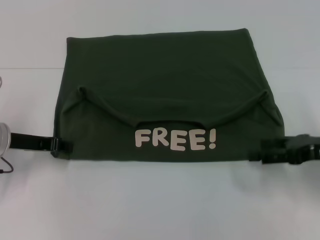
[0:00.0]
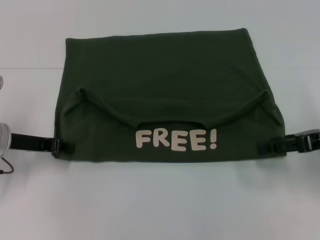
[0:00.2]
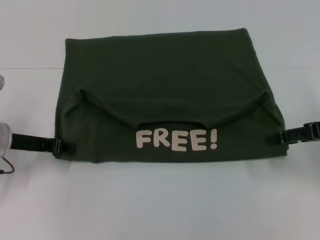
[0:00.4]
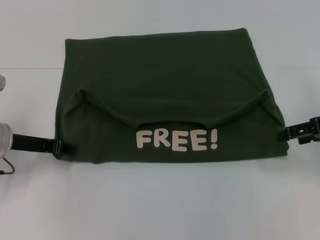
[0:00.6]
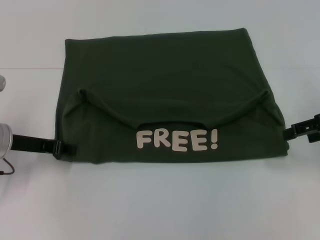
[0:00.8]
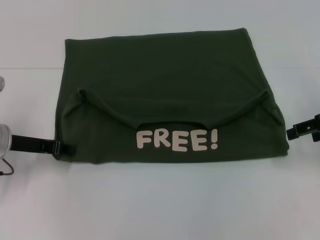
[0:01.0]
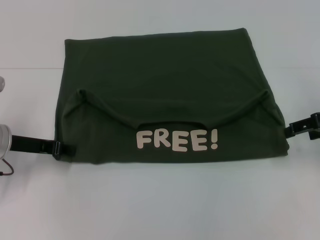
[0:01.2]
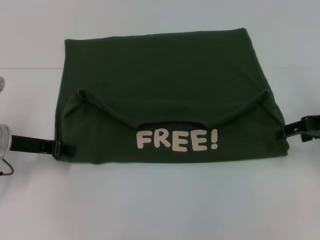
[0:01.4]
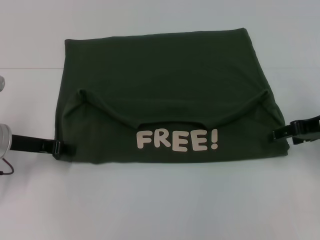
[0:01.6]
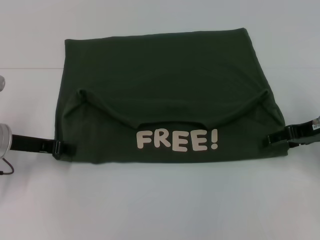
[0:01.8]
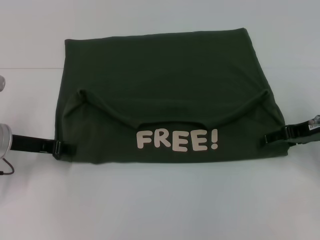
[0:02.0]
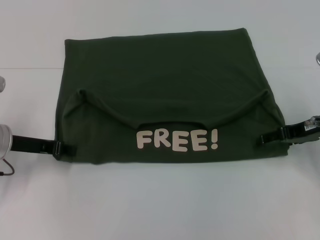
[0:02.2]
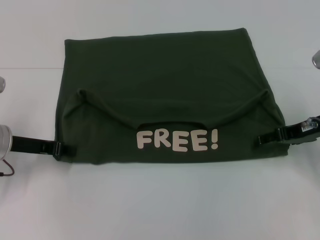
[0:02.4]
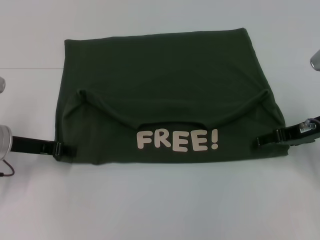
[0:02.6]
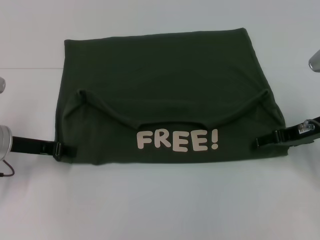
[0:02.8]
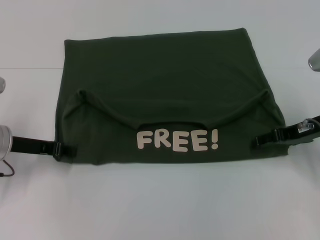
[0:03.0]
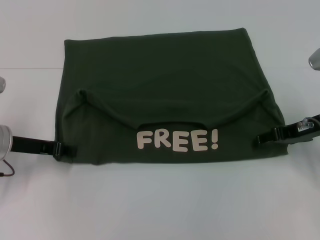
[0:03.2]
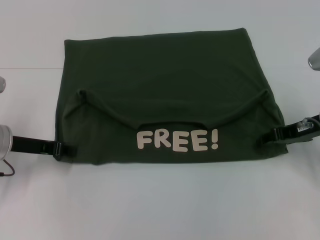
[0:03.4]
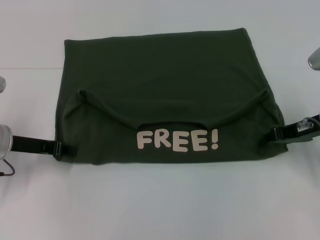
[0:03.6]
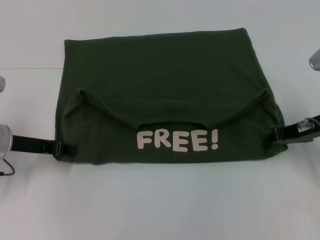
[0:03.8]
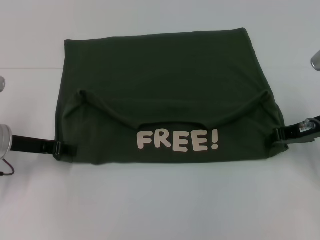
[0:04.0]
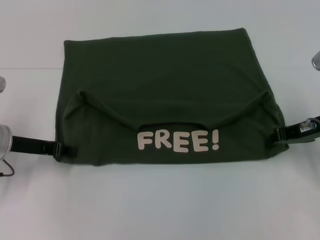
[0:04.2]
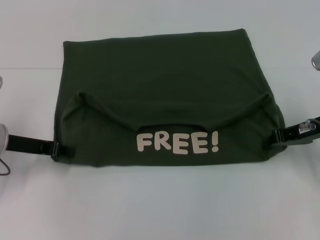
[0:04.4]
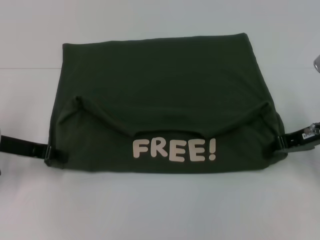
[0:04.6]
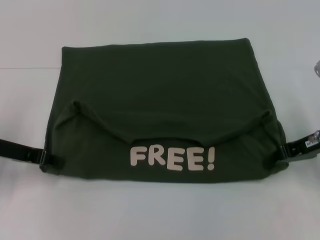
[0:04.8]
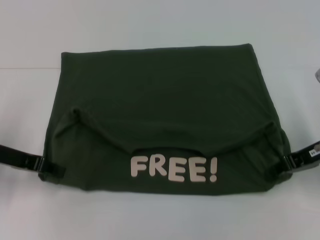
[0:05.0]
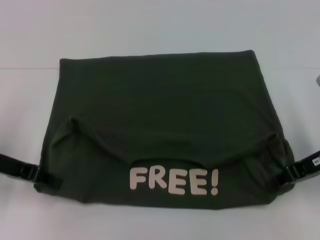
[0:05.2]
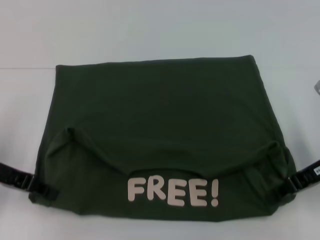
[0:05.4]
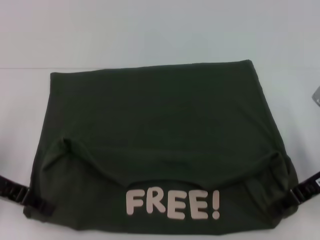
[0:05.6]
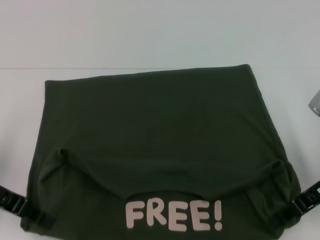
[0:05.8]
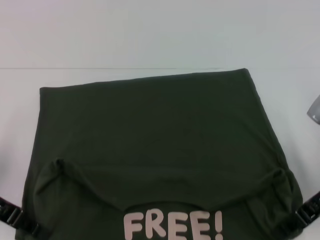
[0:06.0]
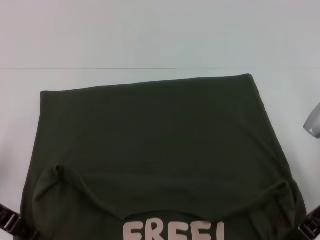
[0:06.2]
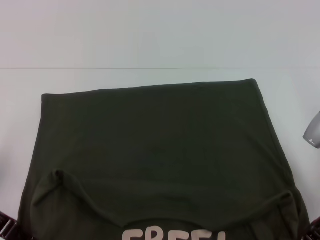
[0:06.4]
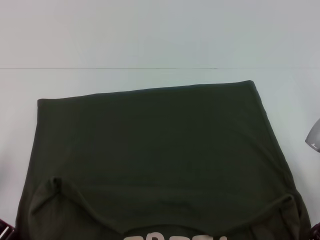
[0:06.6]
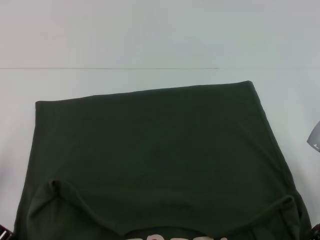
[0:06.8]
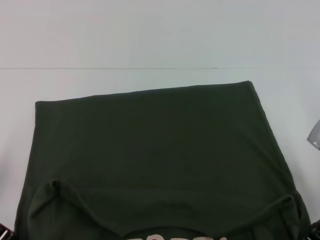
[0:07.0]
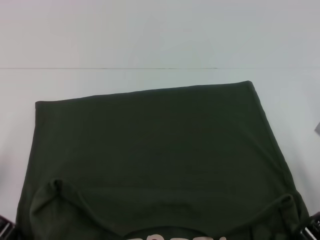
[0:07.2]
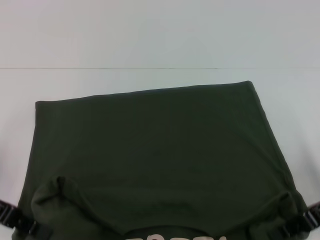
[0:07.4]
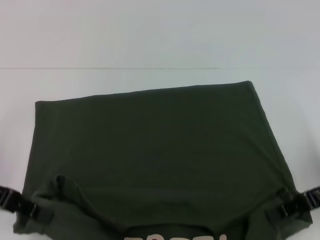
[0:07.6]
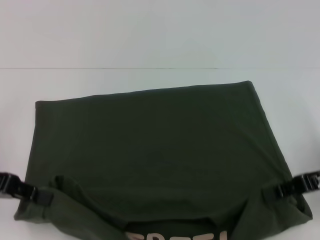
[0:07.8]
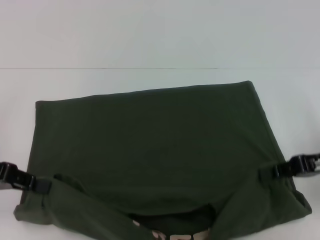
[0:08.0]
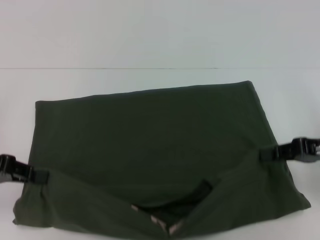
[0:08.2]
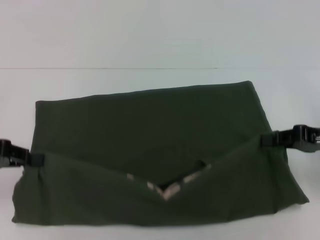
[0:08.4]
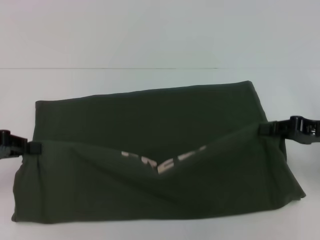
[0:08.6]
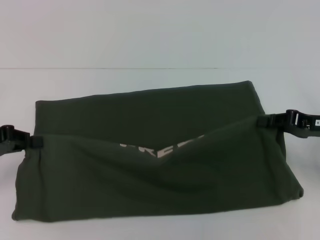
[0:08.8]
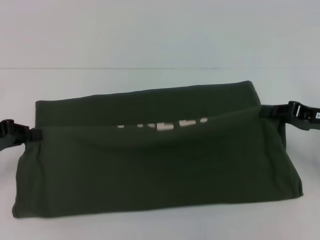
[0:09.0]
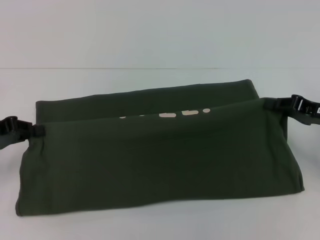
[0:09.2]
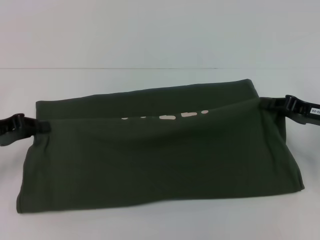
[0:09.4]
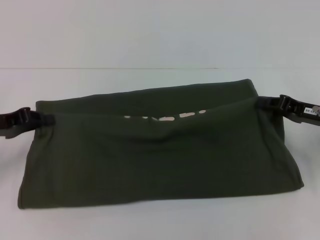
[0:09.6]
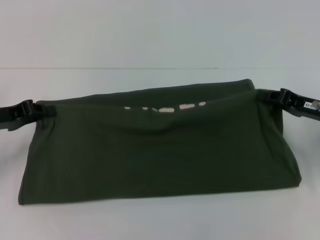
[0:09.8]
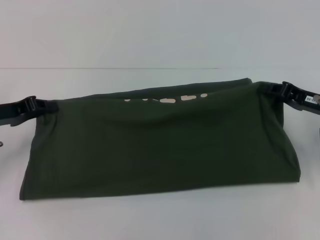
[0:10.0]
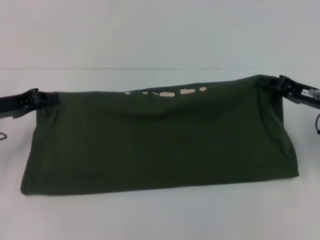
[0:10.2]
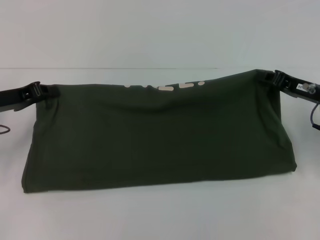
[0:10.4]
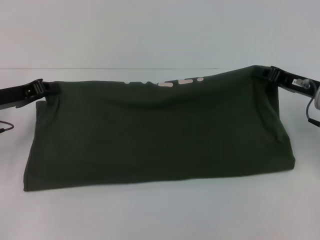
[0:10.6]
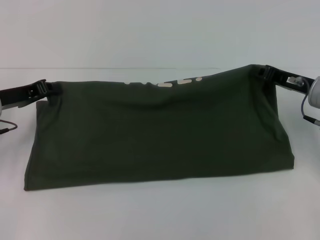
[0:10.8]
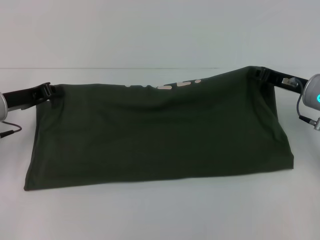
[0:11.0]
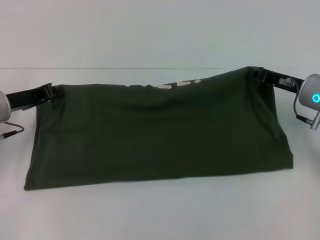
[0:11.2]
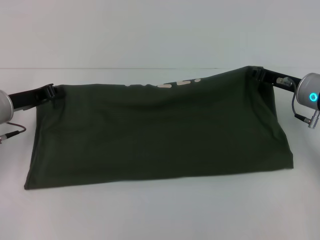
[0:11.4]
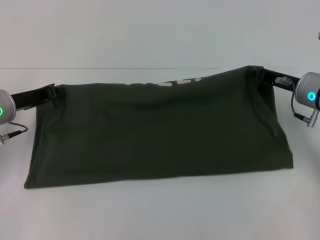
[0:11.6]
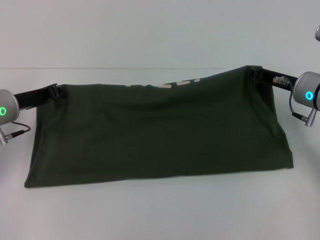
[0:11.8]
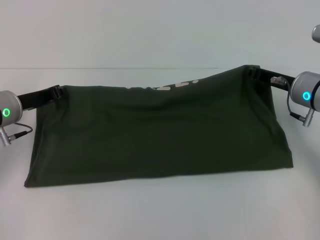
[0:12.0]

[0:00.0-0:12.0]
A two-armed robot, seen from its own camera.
Step, 0:00.0 to 0:06.0: Pull the clothes with your left hand.
Step, 0:00.0 to 0:06.0: Pull the clothes with your right hand.
0:00.0 to 0:01.6: The right gripper is displaced forward by about 5 cm.
0:01.6 to 0:03.0: There are only small adjustments of the grippers.
0:03.0 to 0:04.4: The right gripper closes.
0:04.4 to 0:06.0: The grippers both shift backward by some 5 cm.
0:06.0 to 0:07.6: The grippers make only small movements.
0:07.6 to 0:09.0: The left gripper changes place by roughly 5 cm. Meanwhile the right gripper ends up roughly 5 cm from where it was.
0:09.0 to 0:10.4: The left gripper heads forward, covering some 5 cm.
0:10.4 to 0:12.0: The left gripper moves about 5 cm. Meanwhile the right gripper shifts by about 5 cm.

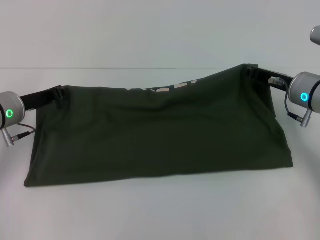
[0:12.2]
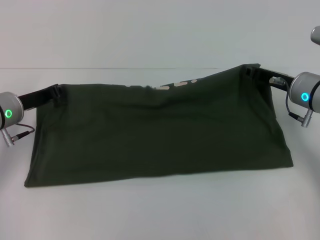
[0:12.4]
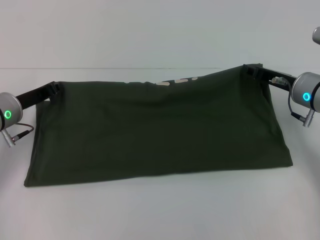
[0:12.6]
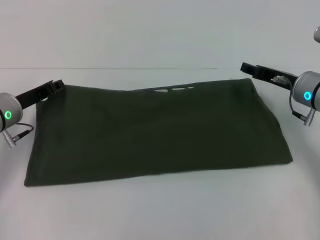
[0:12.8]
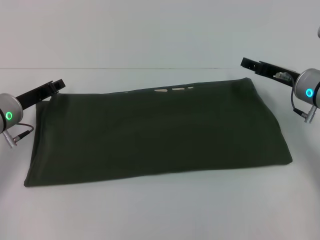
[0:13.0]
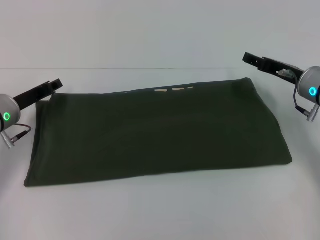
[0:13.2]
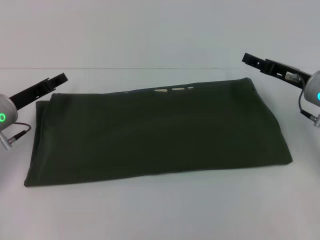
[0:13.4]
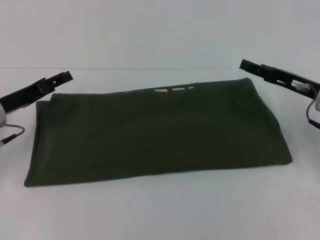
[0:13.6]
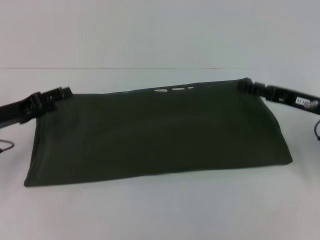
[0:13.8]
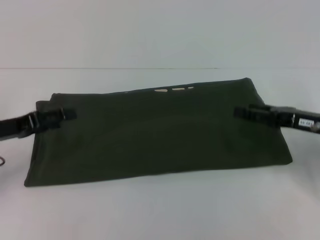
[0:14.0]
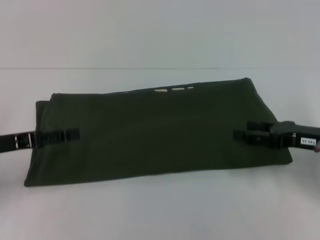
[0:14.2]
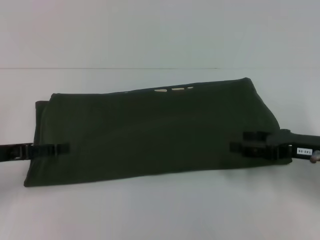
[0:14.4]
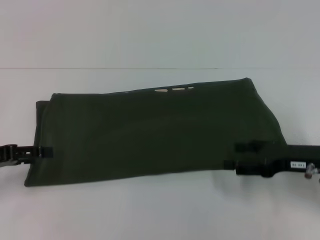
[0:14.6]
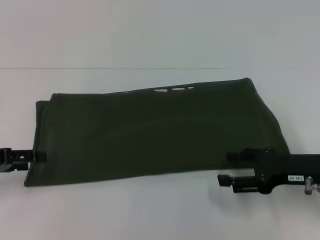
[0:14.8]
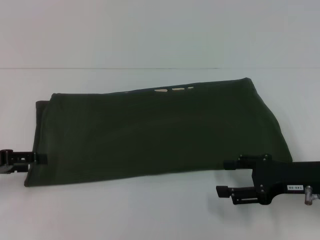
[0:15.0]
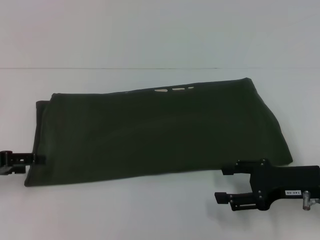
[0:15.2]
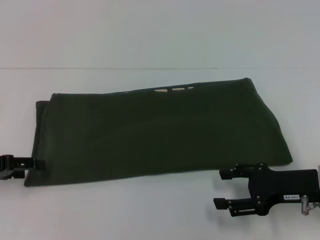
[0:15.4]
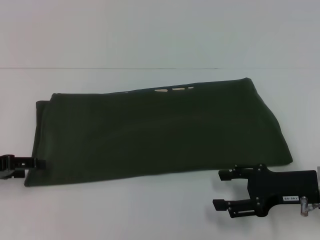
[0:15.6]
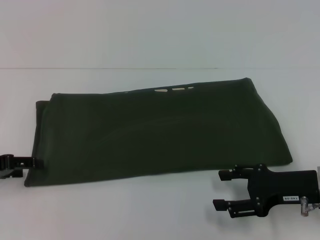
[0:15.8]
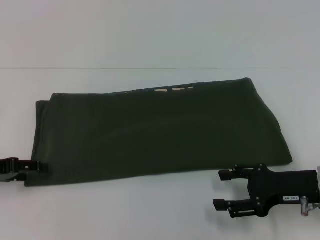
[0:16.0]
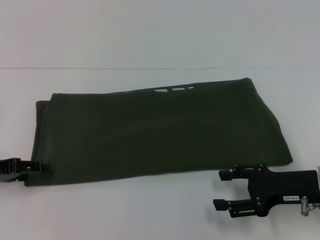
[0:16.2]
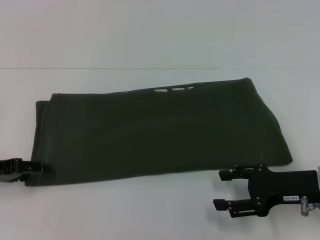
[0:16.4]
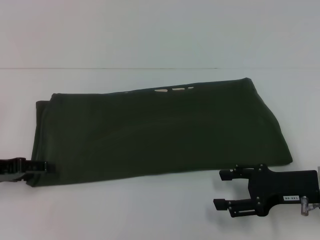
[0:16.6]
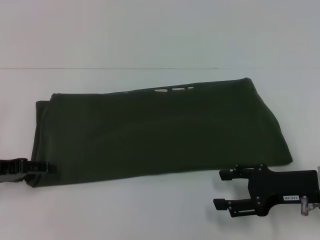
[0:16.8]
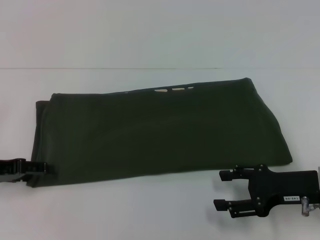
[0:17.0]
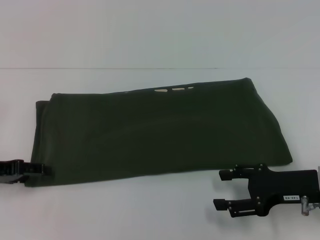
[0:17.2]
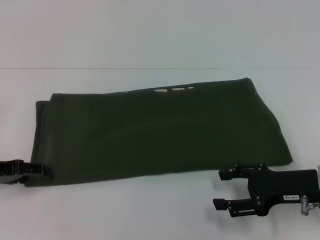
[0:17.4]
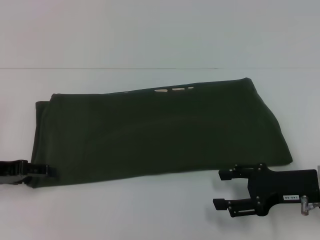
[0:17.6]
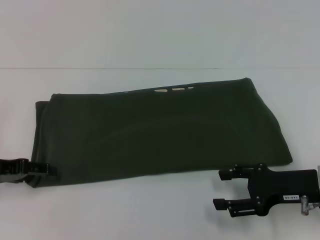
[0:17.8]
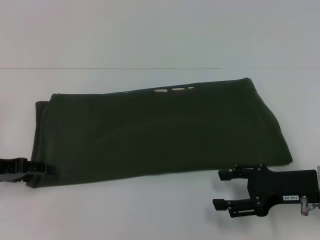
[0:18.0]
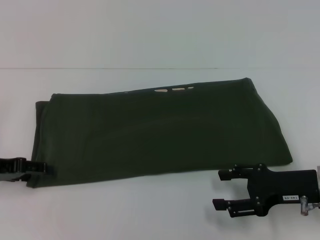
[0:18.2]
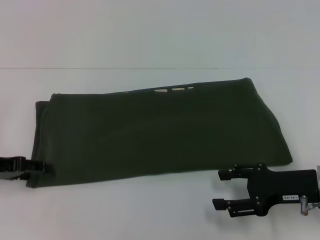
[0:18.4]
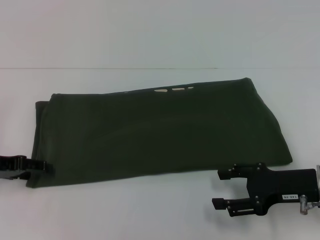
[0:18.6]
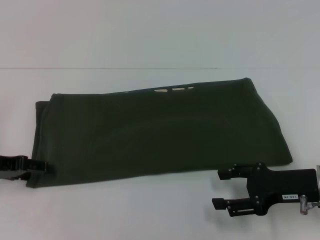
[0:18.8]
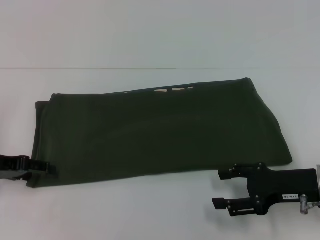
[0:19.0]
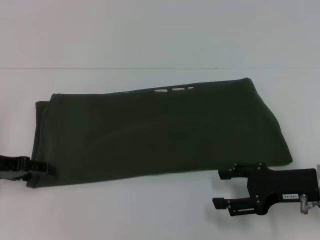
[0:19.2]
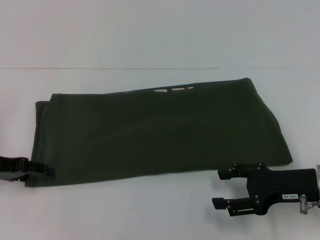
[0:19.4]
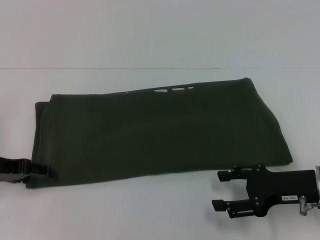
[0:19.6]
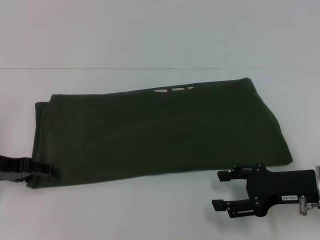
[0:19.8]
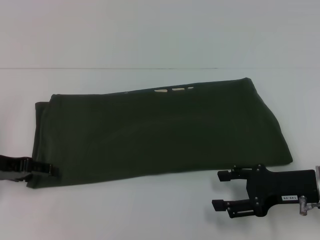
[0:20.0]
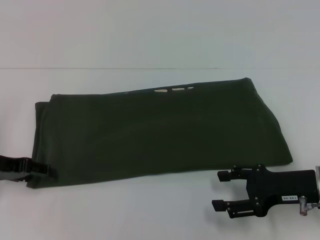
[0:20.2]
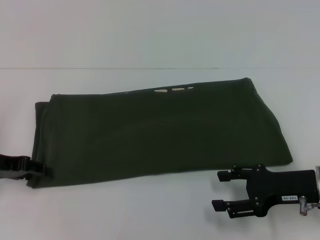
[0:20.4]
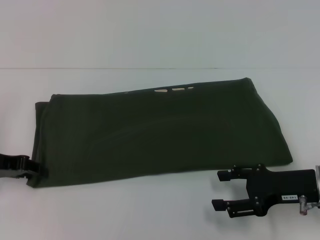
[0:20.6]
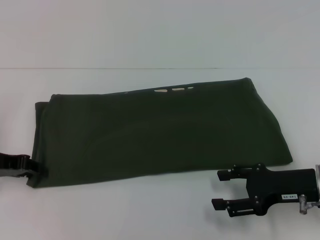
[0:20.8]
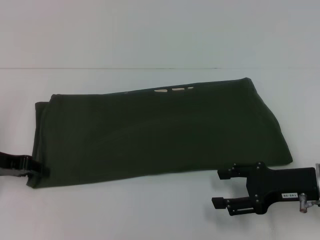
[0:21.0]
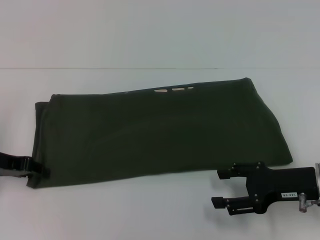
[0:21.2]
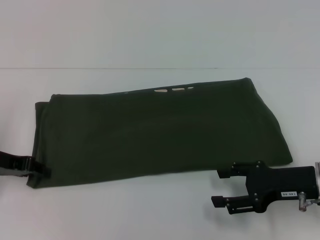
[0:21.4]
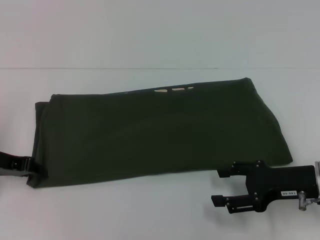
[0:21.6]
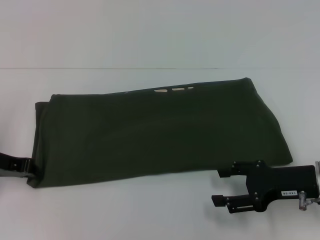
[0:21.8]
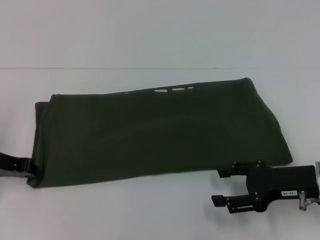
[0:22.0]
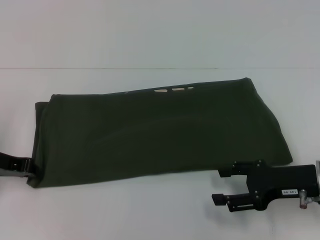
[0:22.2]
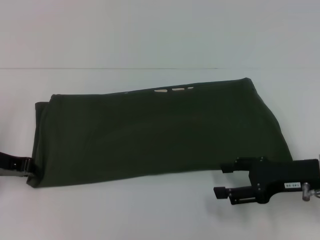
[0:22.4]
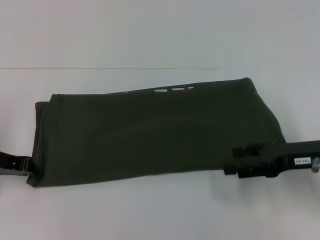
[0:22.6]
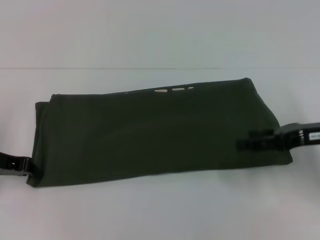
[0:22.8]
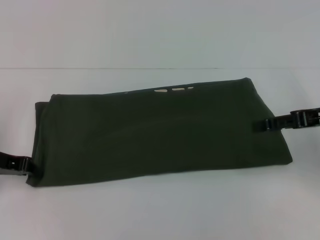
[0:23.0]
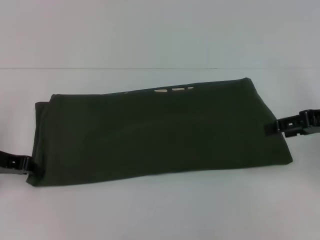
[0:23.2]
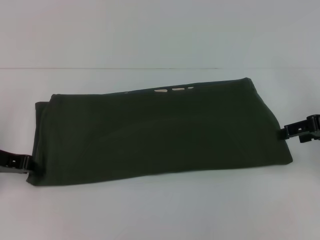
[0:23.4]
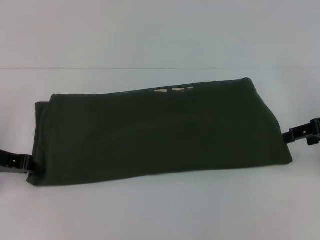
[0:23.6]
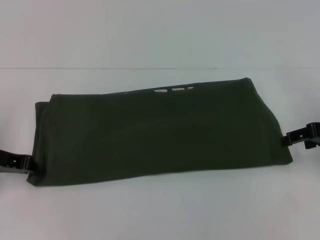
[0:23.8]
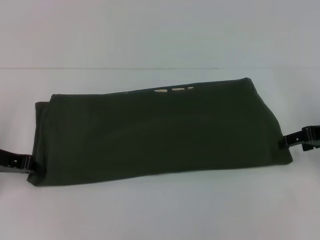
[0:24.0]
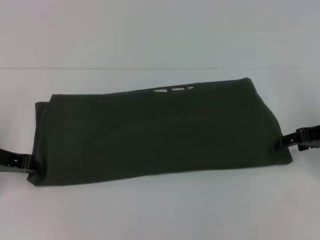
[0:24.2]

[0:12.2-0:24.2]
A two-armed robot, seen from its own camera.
0:12.2 to 0:13.8: The right gripper is displaced backward by some 5 cm, and opens its fingers; the left gripper moves roughly 5 cm, and opens its fingers.
0:13.8 to 0:15.2: The left gripper moves some 5 cm. Meanwhile the right gripper goes about 5 cm backward.
0:15.2 to 0:16.6: The grippers make only small movements.
0:16.6 to 0:18.2: The two grippers keep their place.
0:18.2 to 0:19.8: The grippers stay close to where they were, moving slightly.
0:21.2 to 0:22.6: The grippers stay close to where they were, moving slightly.
0:22.6 to 0:24.2: The right gripper is displaced forward by roughly 5 cm.
